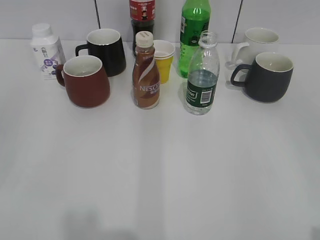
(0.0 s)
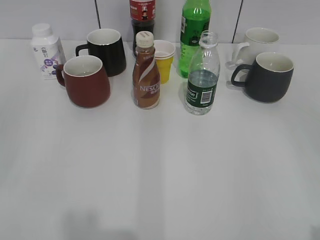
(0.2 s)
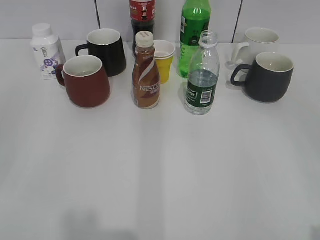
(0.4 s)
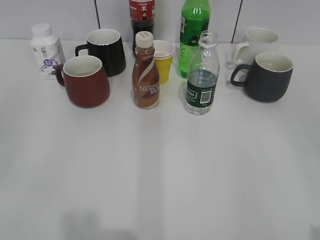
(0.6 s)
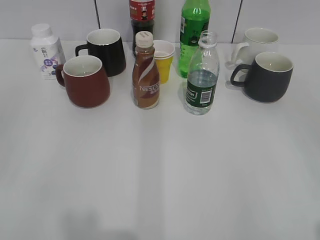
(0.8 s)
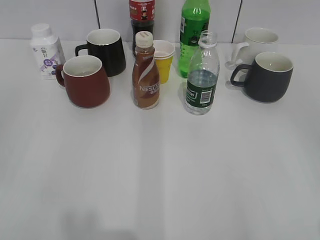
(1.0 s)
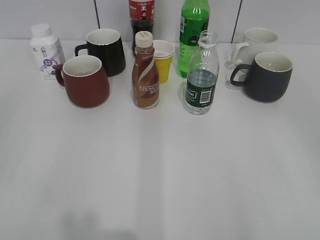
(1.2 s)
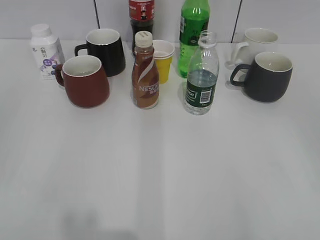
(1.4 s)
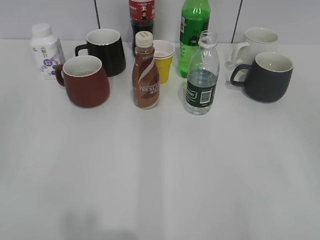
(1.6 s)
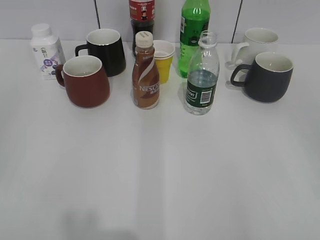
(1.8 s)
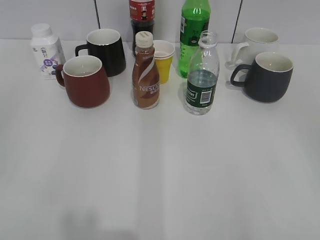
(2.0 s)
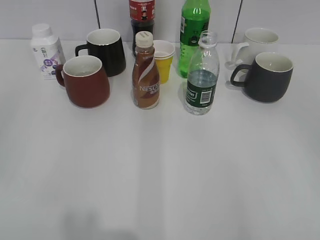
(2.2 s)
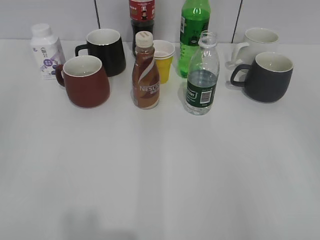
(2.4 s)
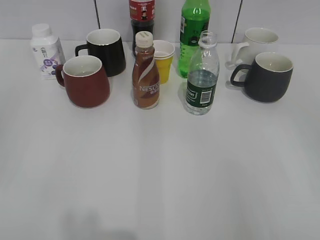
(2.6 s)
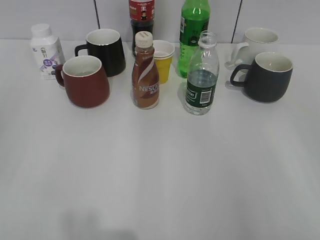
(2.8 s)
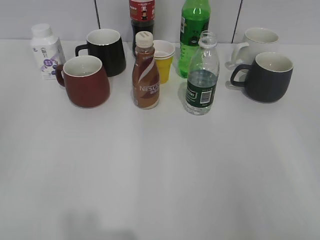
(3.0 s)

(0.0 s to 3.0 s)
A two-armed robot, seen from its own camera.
1.6 s - 3.0 s: The two grippers keep their place.
